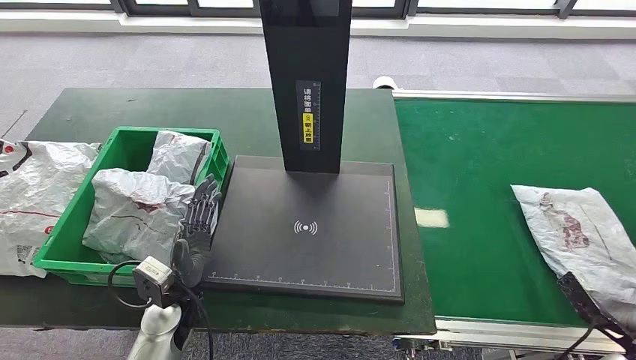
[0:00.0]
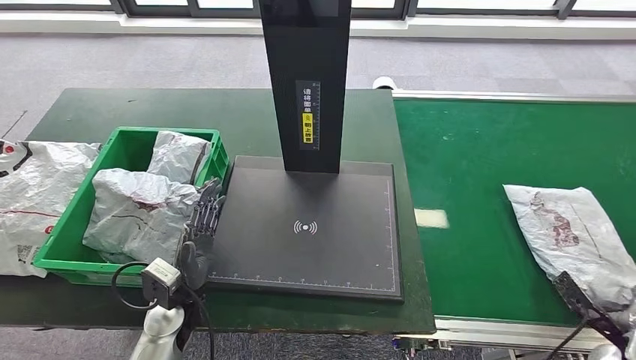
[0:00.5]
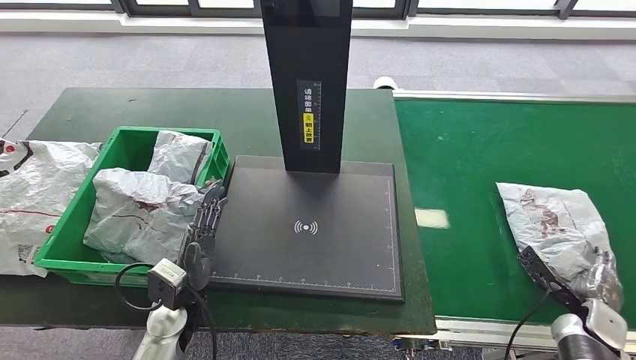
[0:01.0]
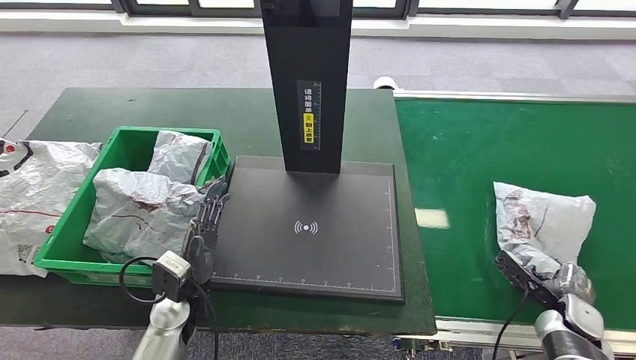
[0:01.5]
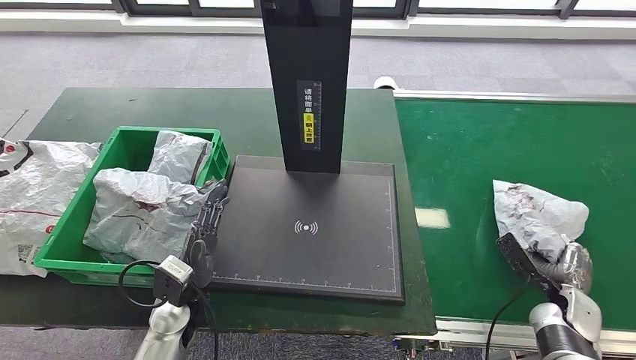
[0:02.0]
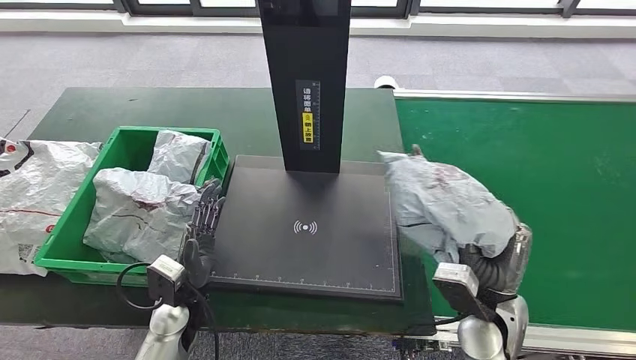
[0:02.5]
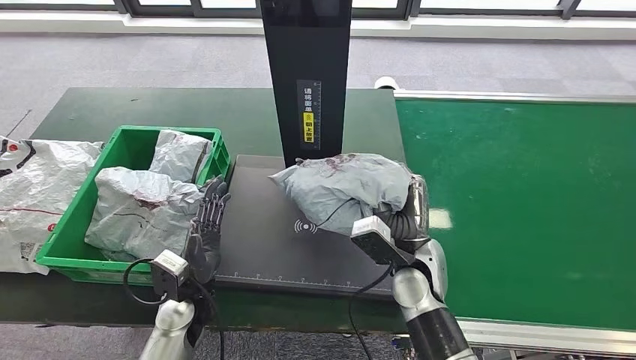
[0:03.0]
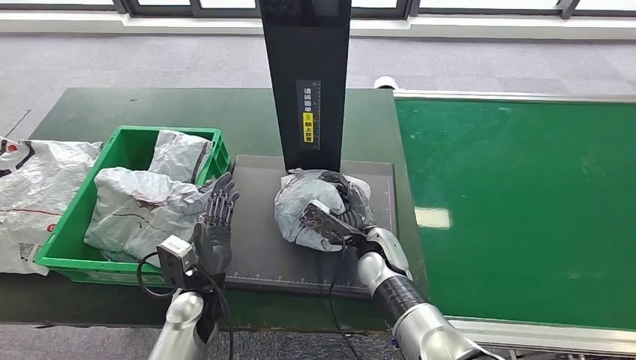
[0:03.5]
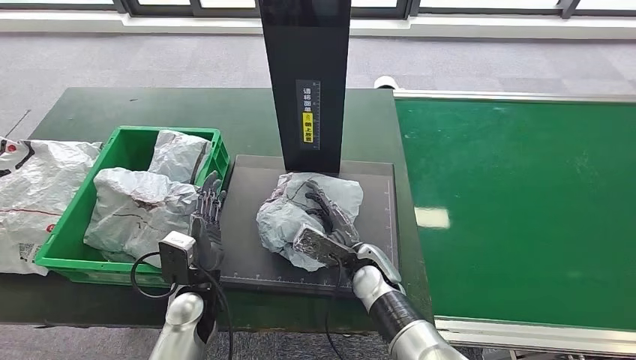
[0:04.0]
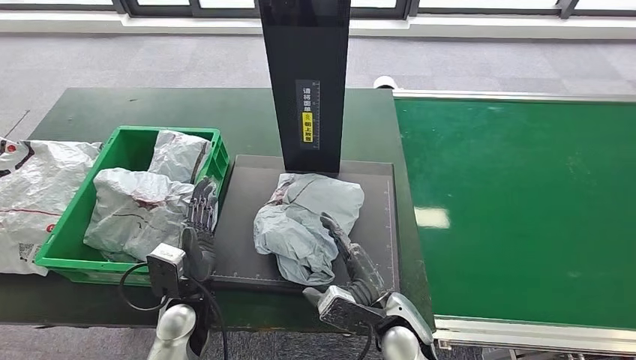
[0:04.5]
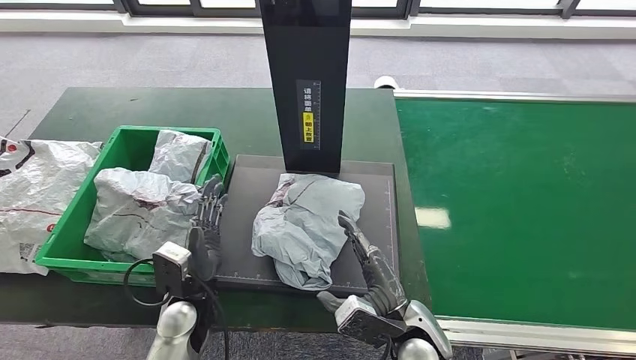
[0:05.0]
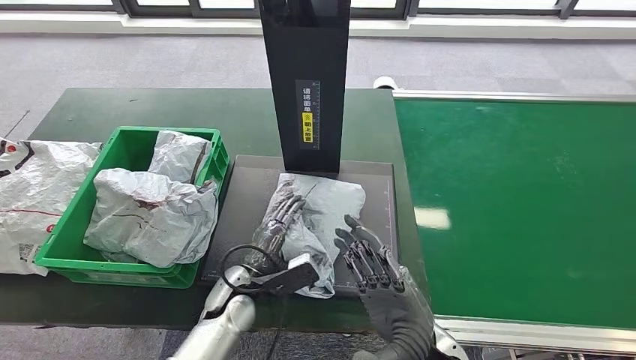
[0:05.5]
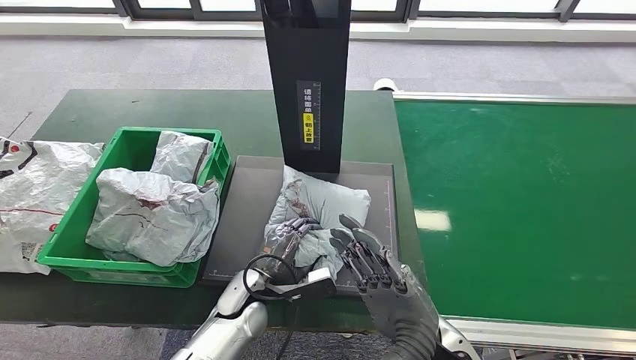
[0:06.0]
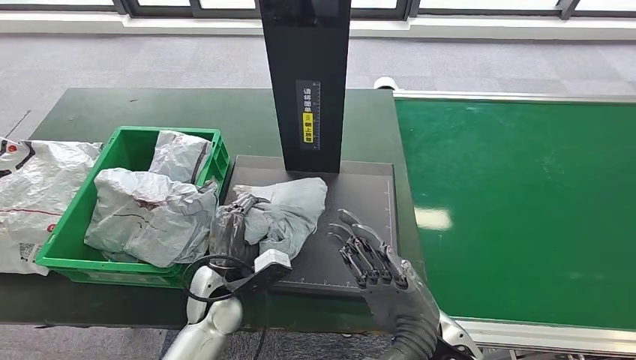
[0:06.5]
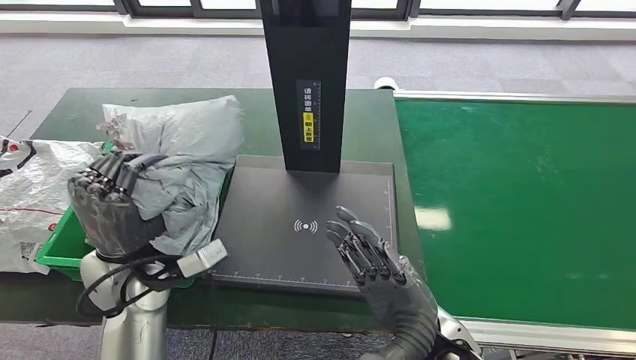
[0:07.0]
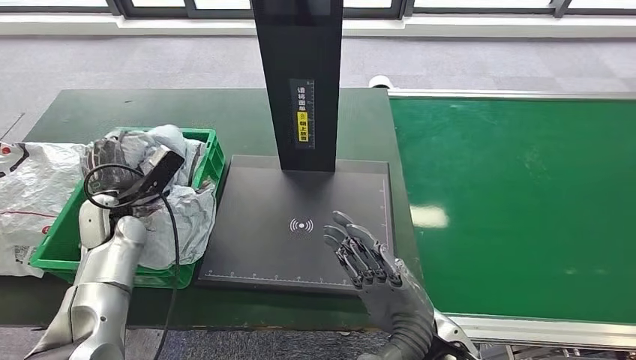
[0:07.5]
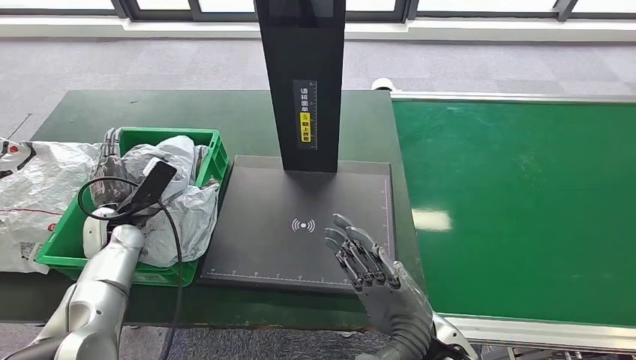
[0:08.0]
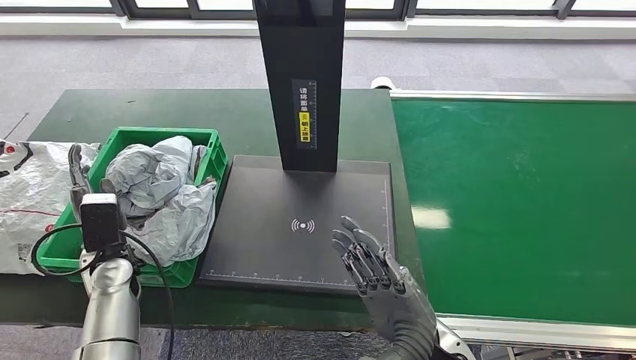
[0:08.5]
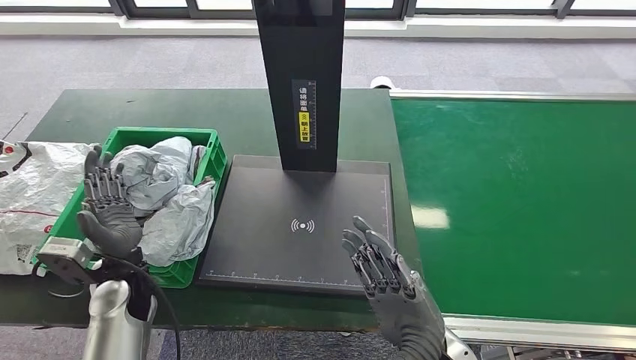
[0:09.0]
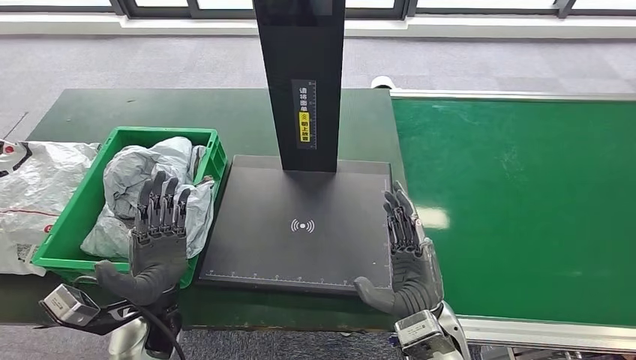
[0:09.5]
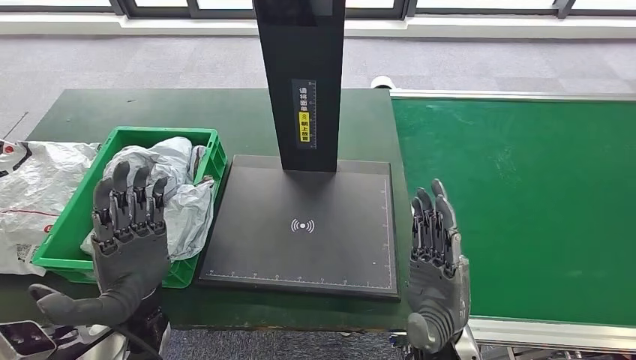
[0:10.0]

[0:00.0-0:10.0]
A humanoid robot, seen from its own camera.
Step, 0:00.0 to 0:02.5: Pick up the parcel from the conveyor belt.
Step, 0:03.0 to 0:04.5: Place the parcel onto the inbound machine.
Step, 0:05.0 to 0:06.5: Pick up the parcel from the inbound machine.
Step, 0:07.0 to 0:10.0: Place the parcel into the delivery box.
0:00.0 to 0:02.0: The right hand moves forward and to the left, about 10 cm.
0:02.0 to 0:04.0: The right hand goes some 35 cm to the left.
0:06.0 to 0:08.0: The left hand goes about 25 cm to the left.
